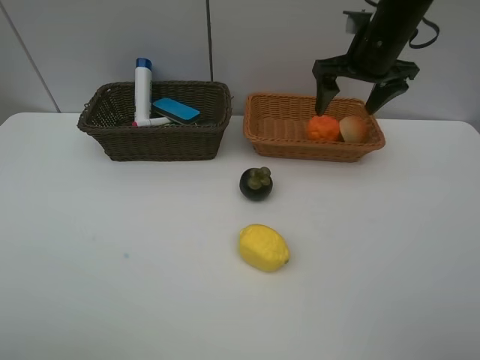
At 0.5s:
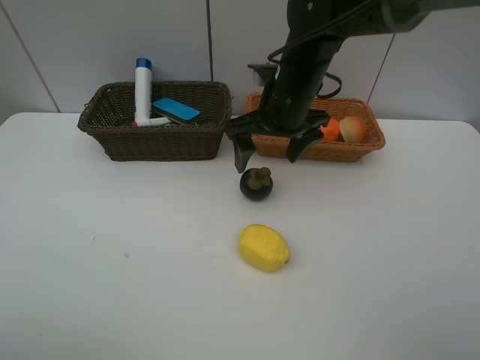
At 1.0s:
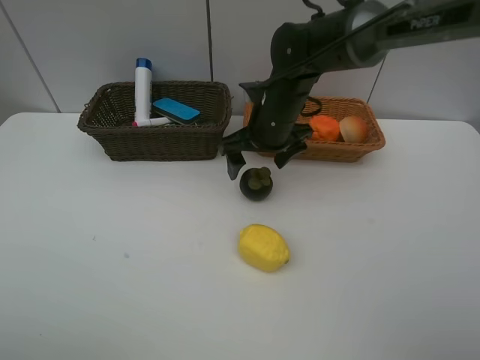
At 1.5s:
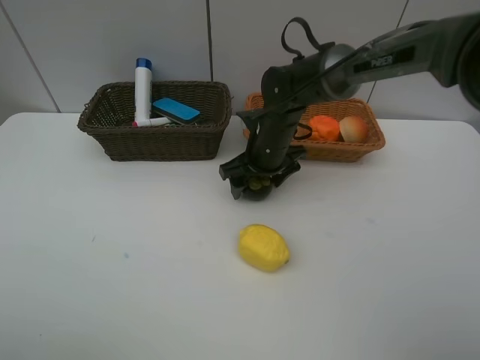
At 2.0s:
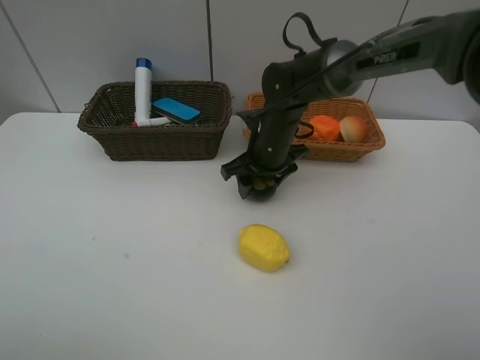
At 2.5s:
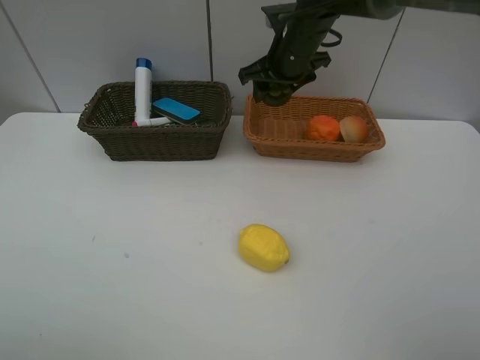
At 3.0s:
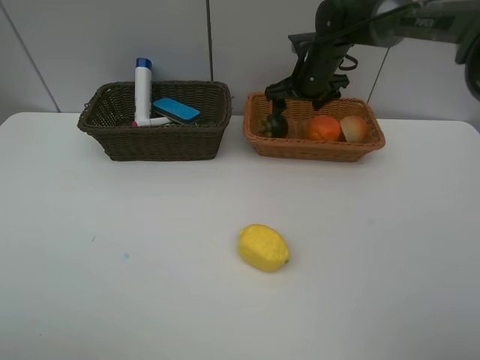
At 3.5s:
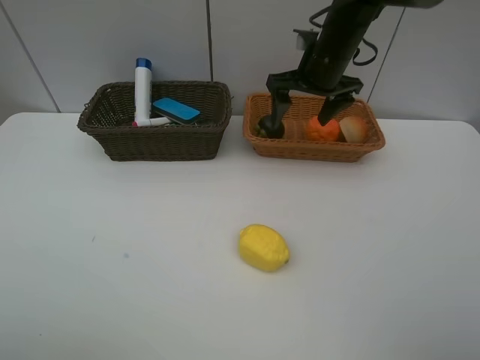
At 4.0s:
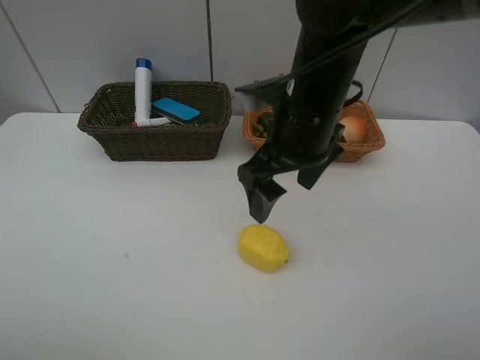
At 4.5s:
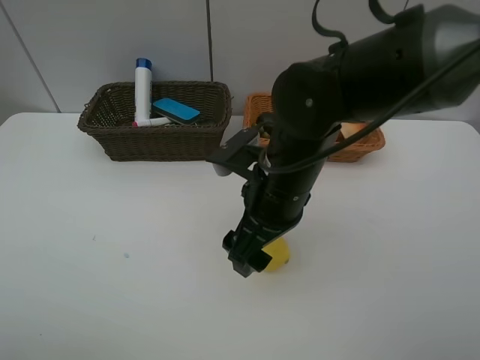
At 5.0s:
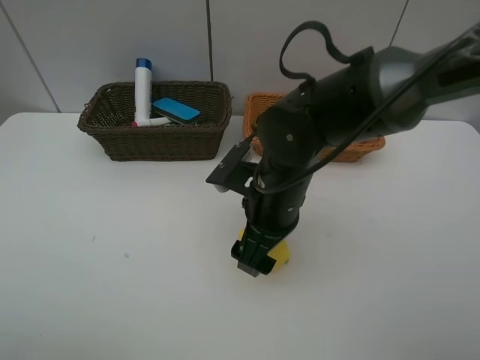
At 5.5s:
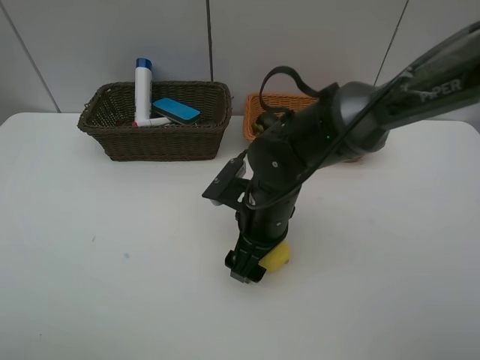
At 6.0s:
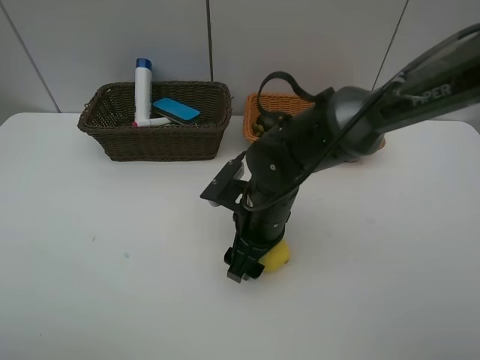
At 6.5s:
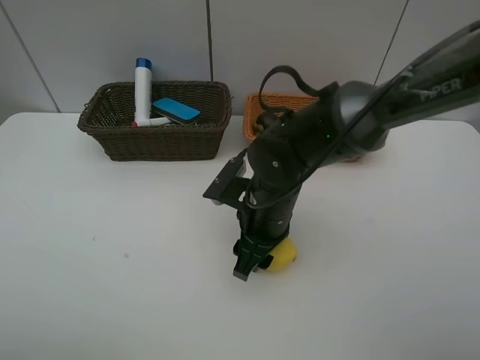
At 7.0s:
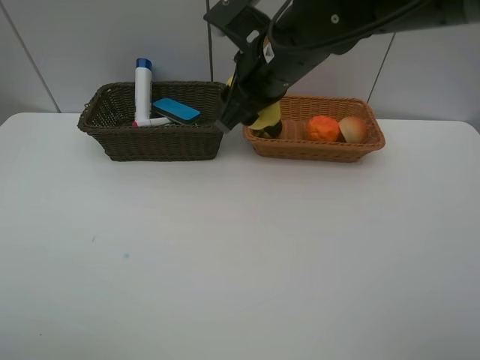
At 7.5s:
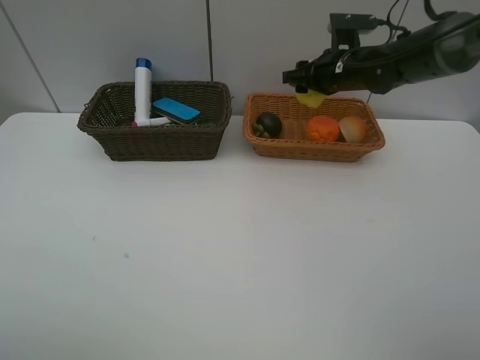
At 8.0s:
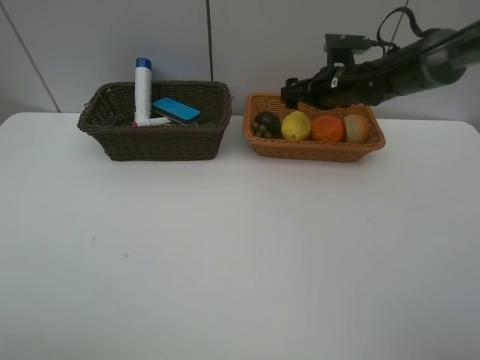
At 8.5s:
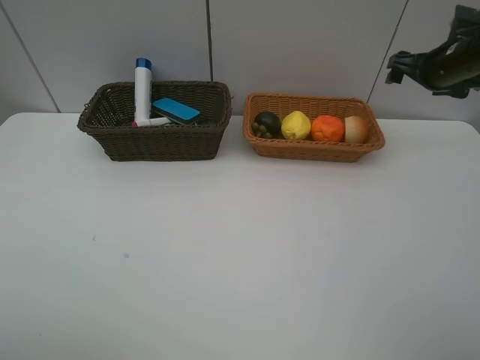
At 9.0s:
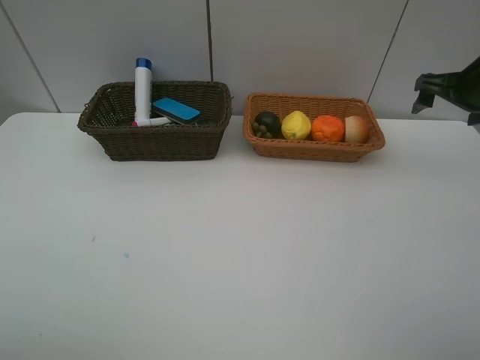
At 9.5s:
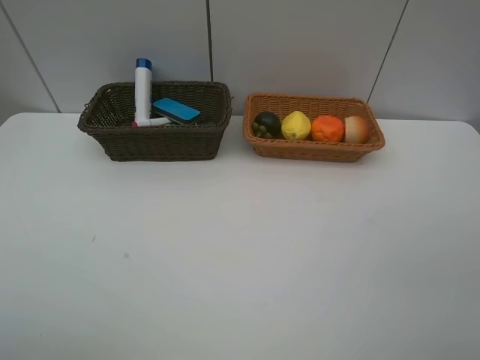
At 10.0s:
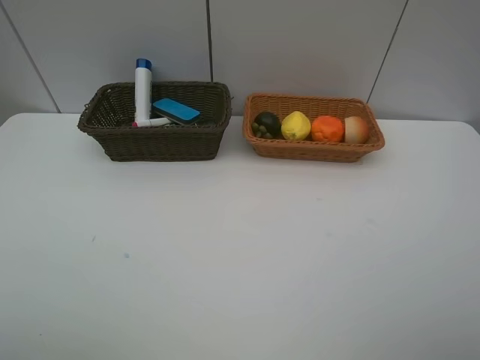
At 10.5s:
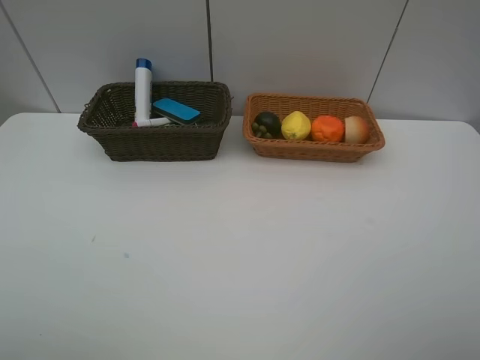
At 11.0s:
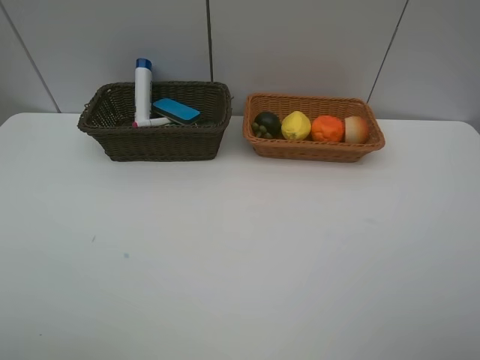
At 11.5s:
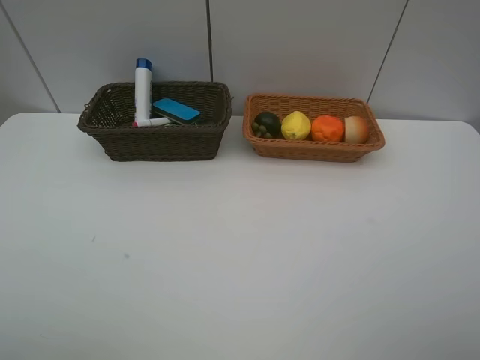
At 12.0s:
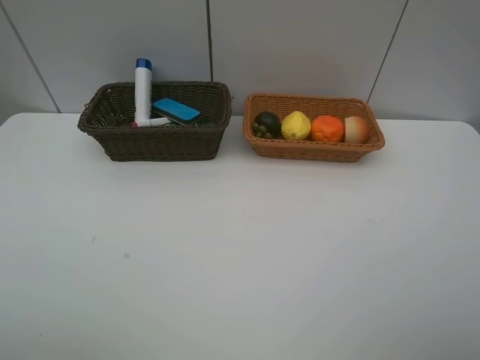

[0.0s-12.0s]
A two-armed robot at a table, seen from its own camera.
Task of the whole recording: Place multiple objects separately in different baskets.
Step, 0.0s to 2.0s: Pick up the mangosteen with right gripper.
Step, 2.5s to 3.0s: Place the mangosteen in the light basket with right gripper.
Step, 3.5s to 6.5s: Pick up the lemon with right gripper.
Step, 7.0s to 8.0s: Place the lemon in the light basket with right gripper.
0.0s to 2.0s: The right gripper moves downward and to the left, roughly 20 cm, and closes up.
2.0s to 4.0s: The right gripper travels backward and upward by about 15 cm, and opens.
4.0s to 6.0s: The right gripper travels downward by roughly 15 cm, and closes up.
6.0s to 8.0s: The right gripper is displaced forward and to the right by about 25 cm, and opens its fingers.
8.0s to 10.0s: The right gripper moves backward, roughly 50 cm.
10.0s to 12.0s: The two grippers keep their place.
